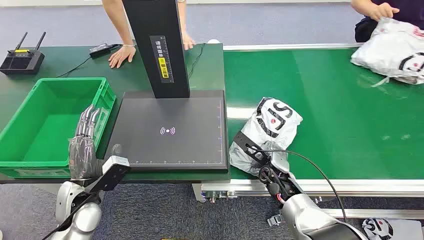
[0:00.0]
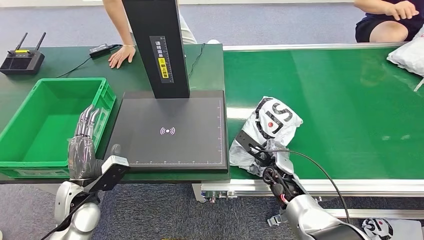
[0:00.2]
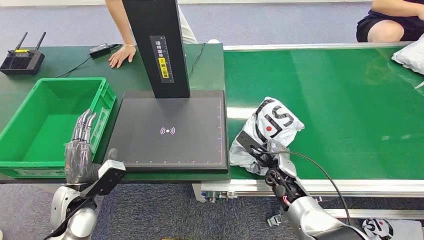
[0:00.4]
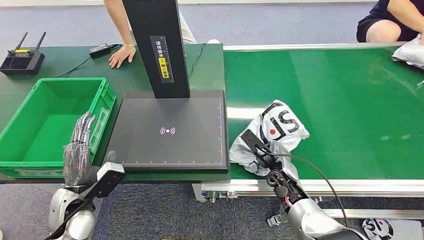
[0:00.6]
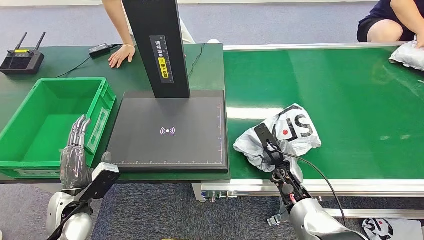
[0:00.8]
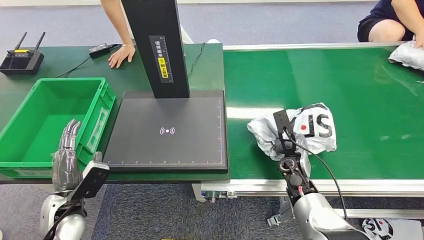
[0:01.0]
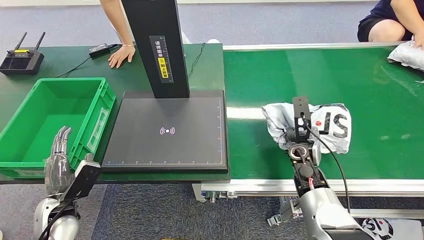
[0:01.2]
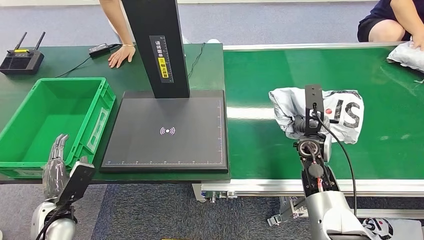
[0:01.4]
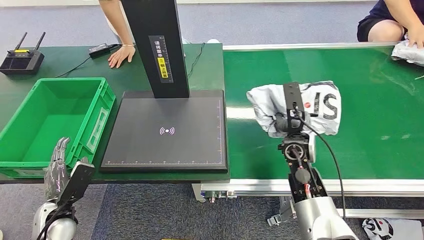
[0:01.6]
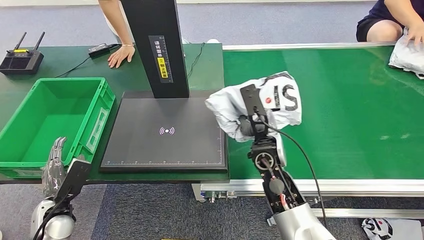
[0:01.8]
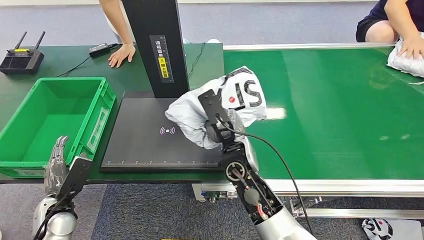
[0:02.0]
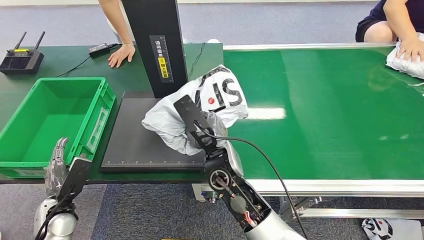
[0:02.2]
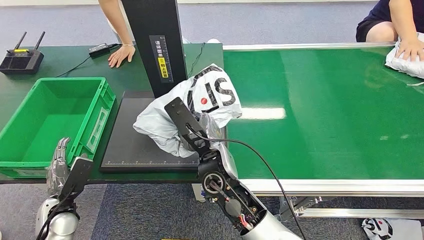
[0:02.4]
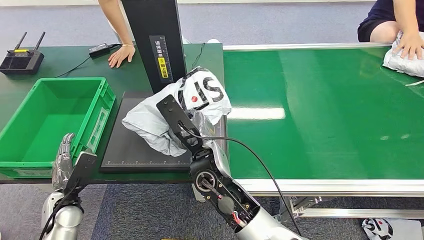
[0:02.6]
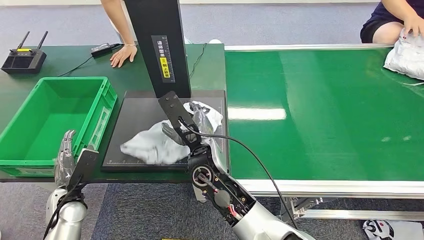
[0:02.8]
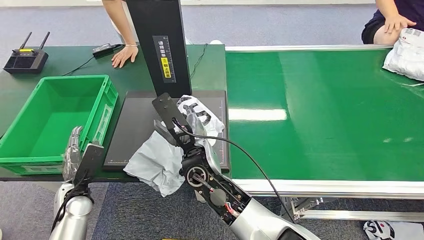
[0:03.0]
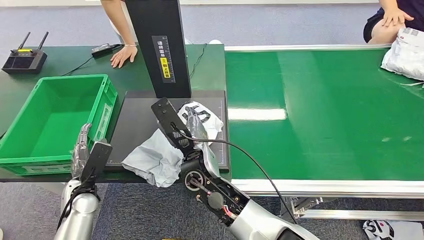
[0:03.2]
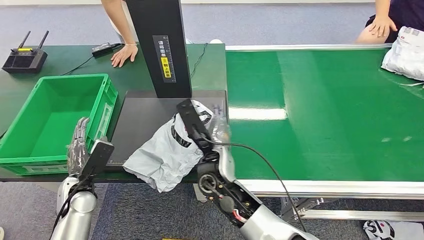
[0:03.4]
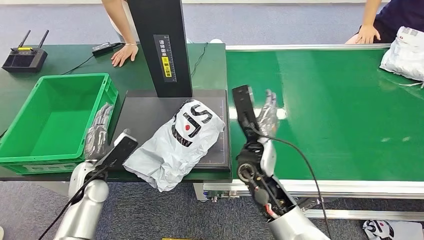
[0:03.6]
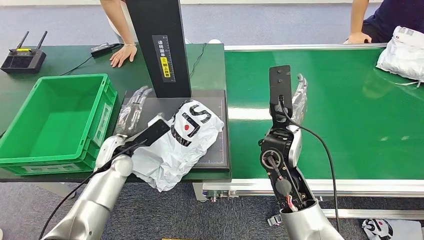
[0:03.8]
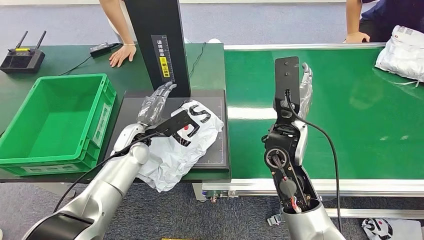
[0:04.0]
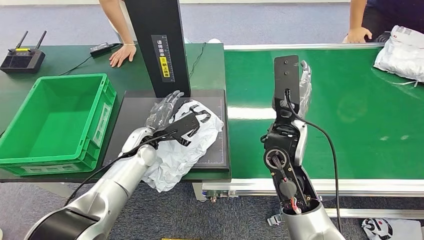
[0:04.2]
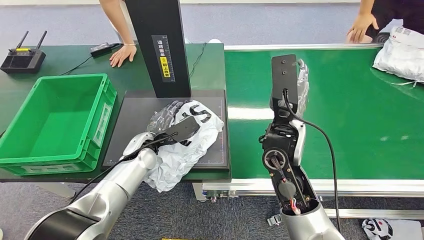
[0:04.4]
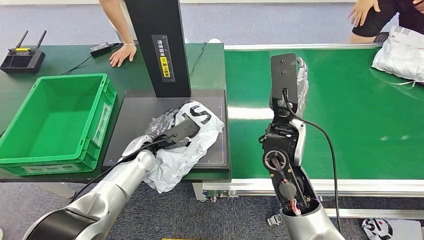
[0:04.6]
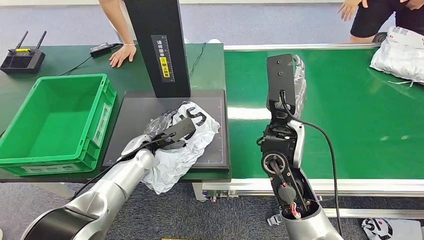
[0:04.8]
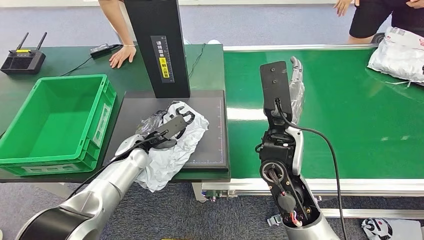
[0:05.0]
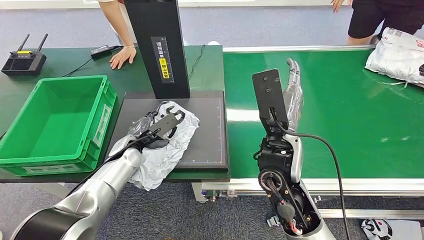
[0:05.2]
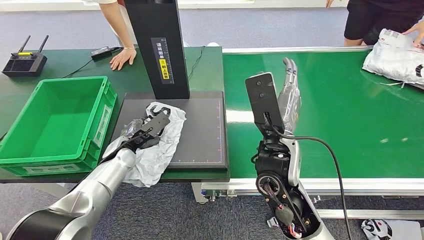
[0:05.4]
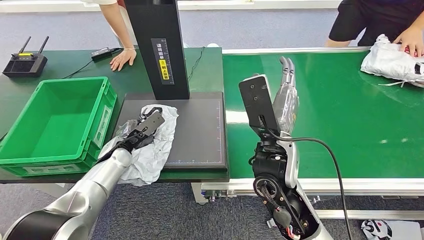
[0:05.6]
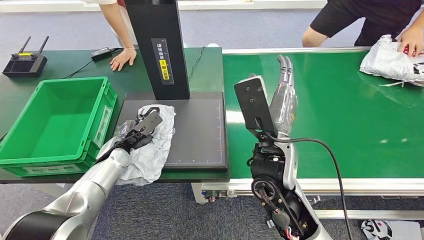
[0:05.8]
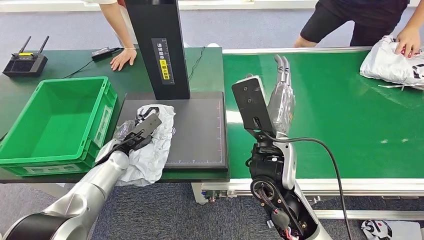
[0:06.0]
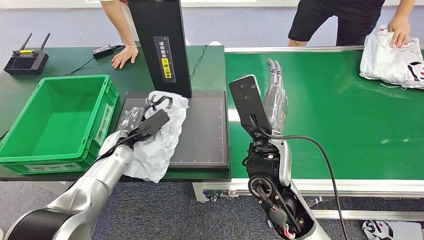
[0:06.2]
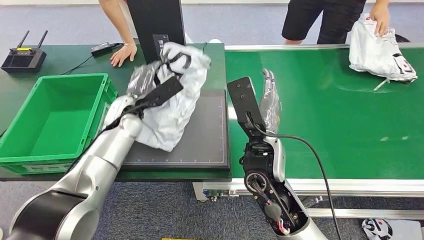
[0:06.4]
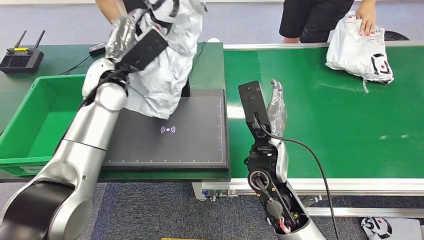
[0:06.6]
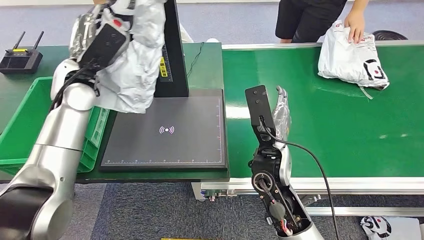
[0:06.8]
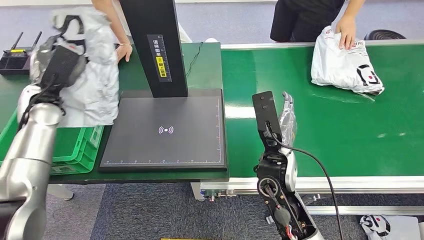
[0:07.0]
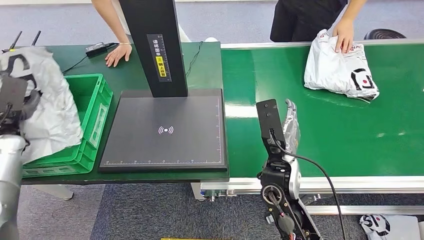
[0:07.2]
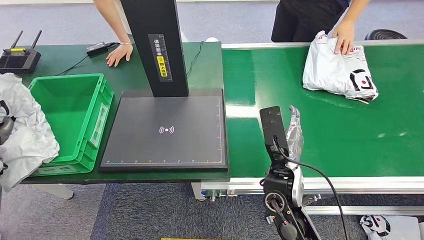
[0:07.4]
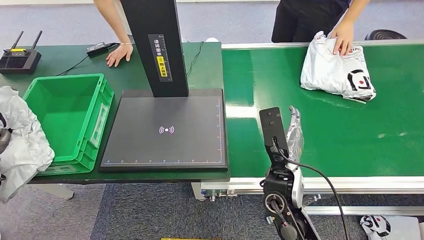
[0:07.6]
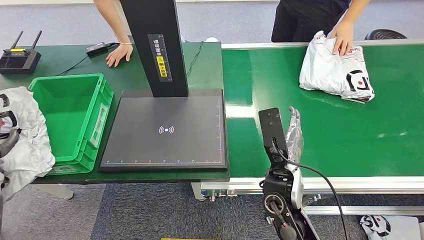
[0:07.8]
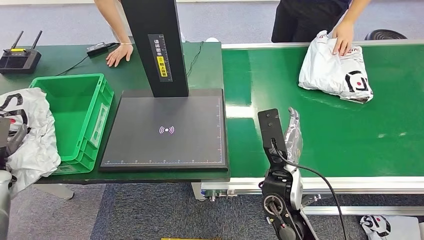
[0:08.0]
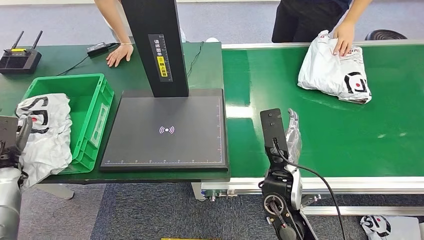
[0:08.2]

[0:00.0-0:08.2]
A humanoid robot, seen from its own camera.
Step, 0:00.0 to 0:01.6: Pick up the package from the conveyor belt.
Step, 0:01.8 to 0:03.4: Place the package onto the inbound machine.
Step, 0:03.6 to 0:06.2: Pick up the package from the inbound machine.
Step, 0:06.4 to 0:08.2: Place the package into the parcel locker.
